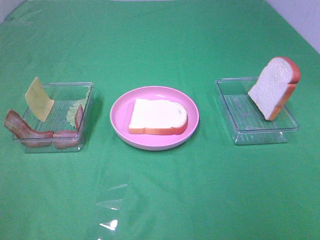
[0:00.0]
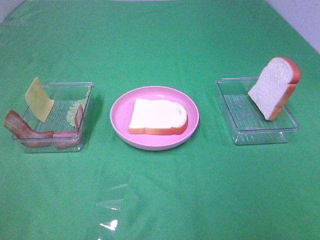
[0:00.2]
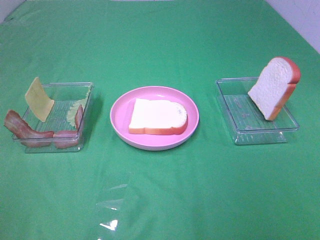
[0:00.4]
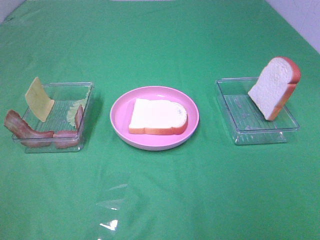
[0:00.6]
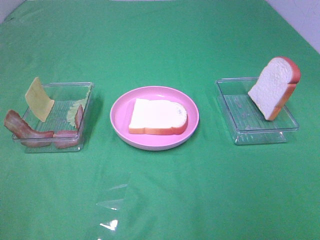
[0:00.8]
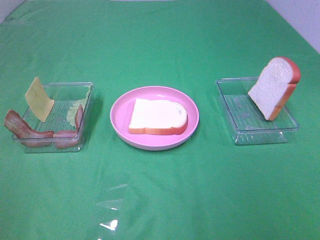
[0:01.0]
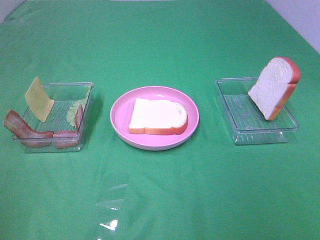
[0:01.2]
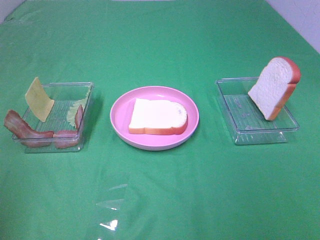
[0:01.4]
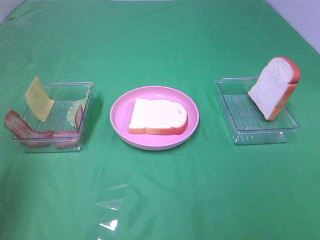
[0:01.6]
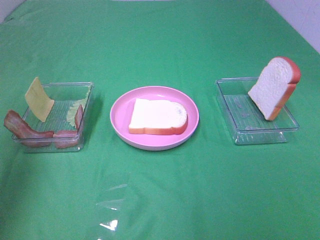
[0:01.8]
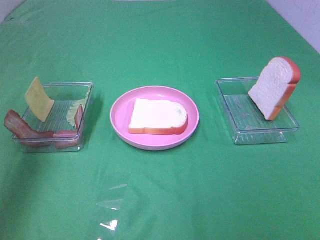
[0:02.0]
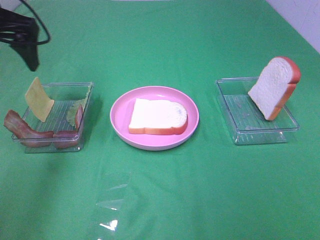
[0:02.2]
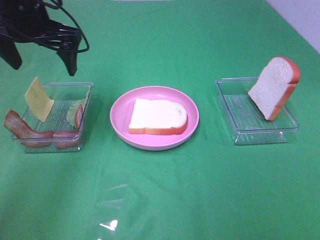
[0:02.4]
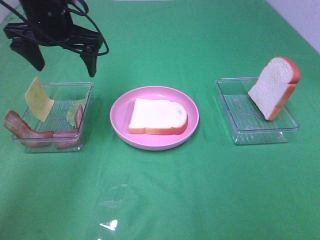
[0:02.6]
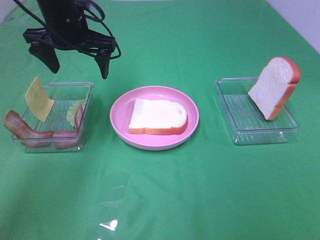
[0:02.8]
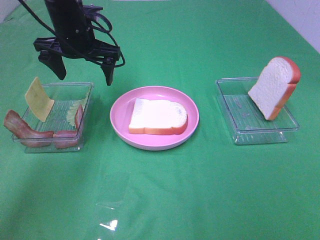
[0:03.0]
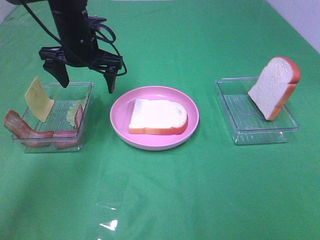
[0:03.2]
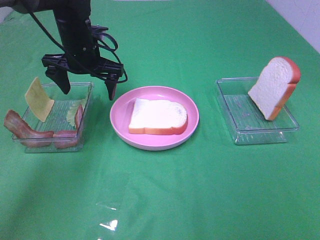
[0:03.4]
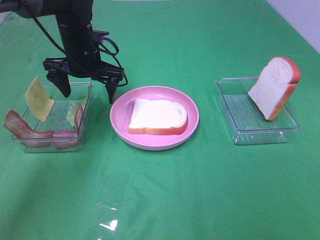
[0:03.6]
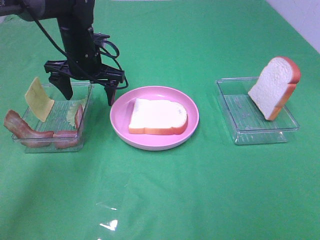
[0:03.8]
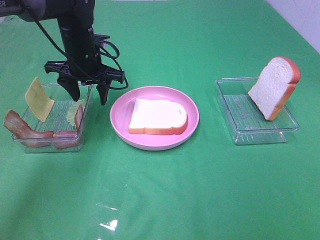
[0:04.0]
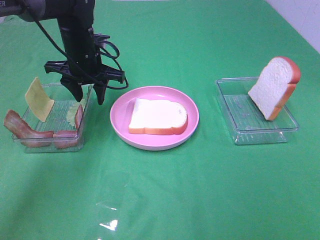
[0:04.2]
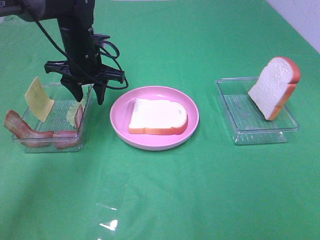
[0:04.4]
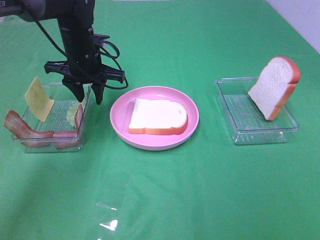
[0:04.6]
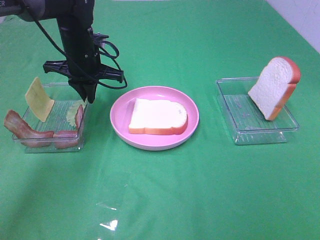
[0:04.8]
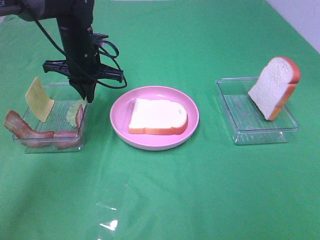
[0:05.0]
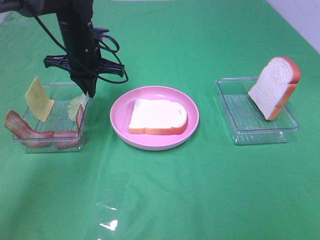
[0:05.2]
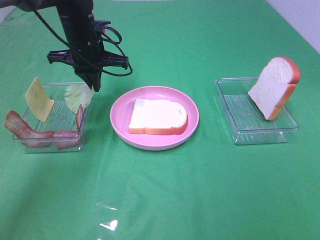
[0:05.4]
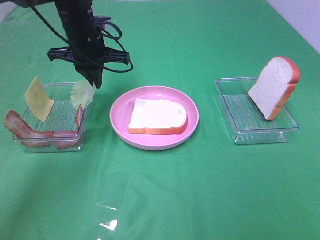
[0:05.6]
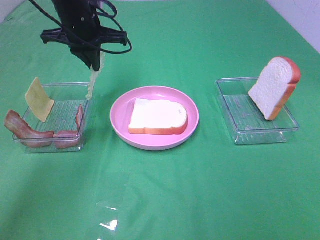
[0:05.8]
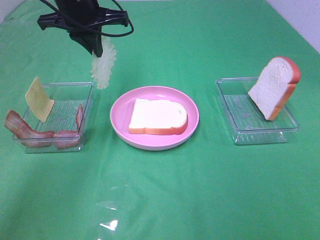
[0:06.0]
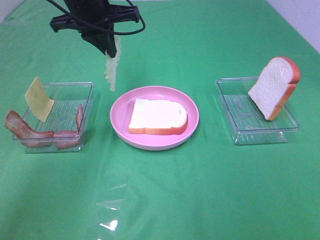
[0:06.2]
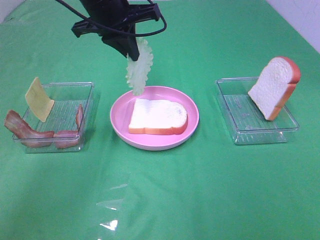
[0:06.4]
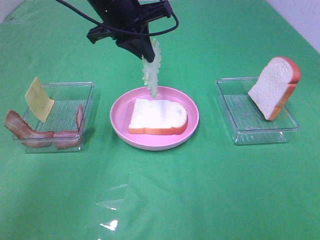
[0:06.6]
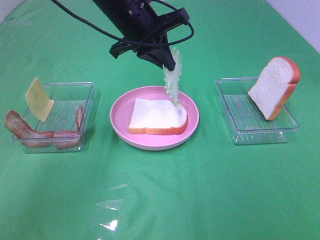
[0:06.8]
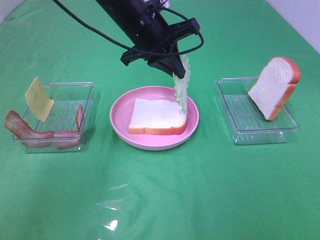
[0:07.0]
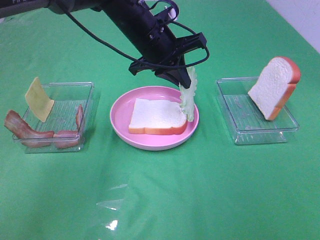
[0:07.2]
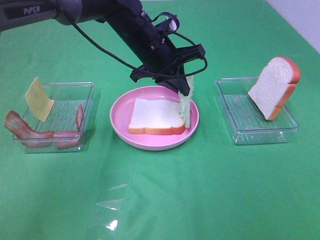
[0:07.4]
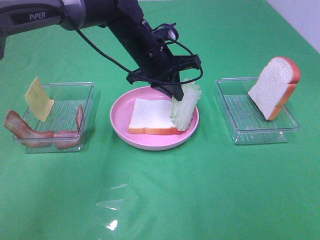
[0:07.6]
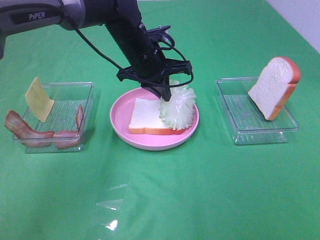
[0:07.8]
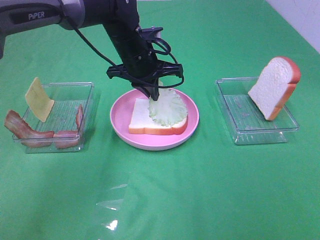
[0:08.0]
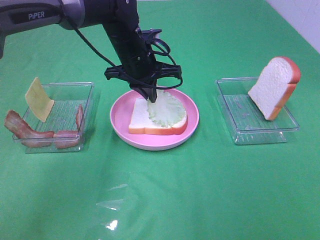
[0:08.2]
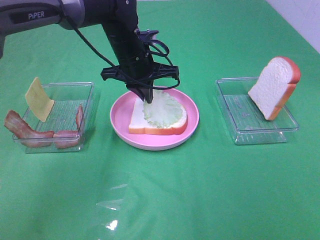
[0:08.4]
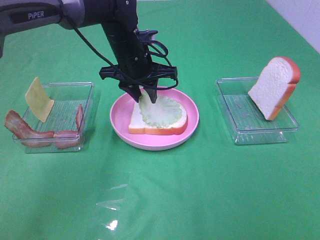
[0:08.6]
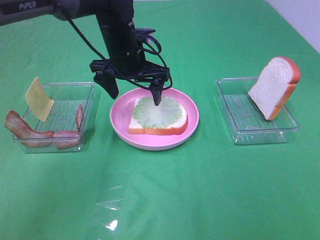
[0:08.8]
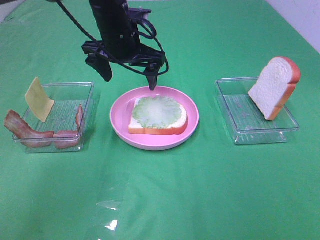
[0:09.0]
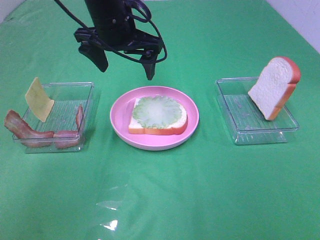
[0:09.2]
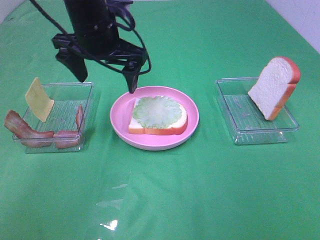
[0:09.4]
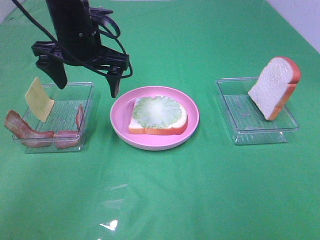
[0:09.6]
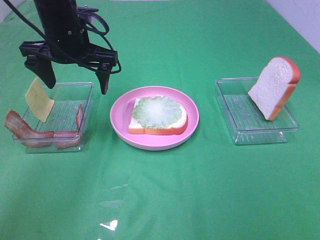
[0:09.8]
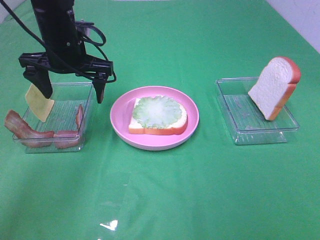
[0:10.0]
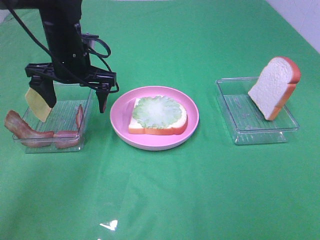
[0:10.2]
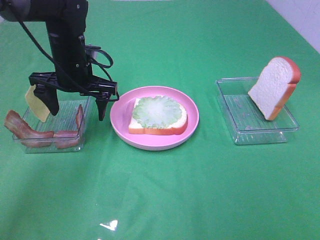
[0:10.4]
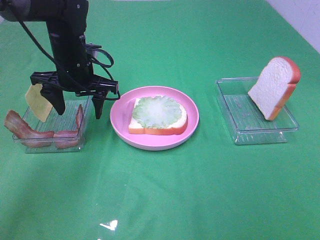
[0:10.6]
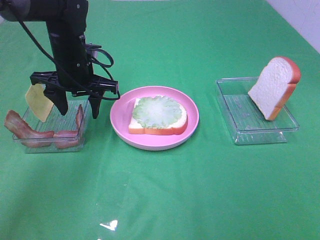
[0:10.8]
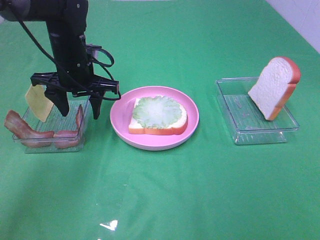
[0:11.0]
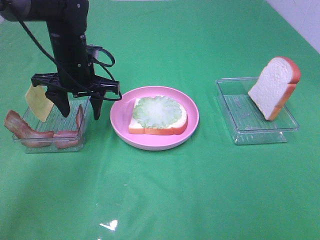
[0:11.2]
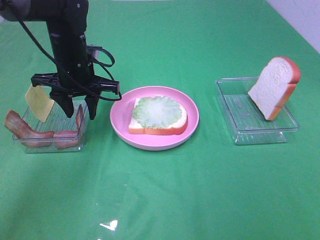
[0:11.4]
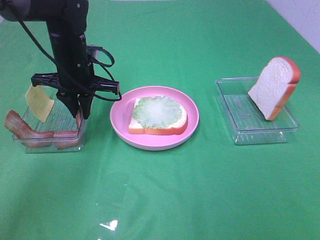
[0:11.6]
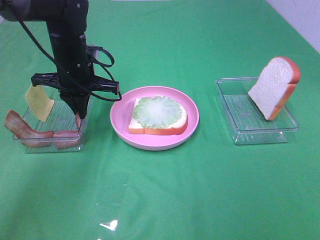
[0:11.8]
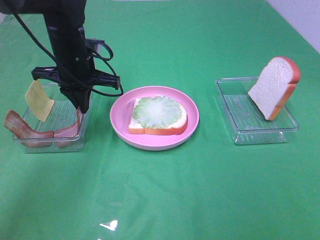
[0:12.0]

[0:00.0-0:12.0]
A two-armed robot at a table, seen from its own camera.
Task of the whole recording: Make sandwiches.
Step, 0.0 to 5.2 s: Left hand:grab the lettuce slice.
Step, 5.4 to 8.6 s: Left hand:place the lettuce slice on the bread slice.
Step, 8.8 to 11.8 s: Left hand:grab the bacon.
0.0 to 1.6 s: The left gripper is displaced forward by approximately 20 cm.
1.6 to 3.0 s: The left gripper shifts approximately 35 cm forward, to the right and downward.
3.0 to 4.4 s: The left gripper closes.
4.4 to 6.0 s: The left gripper heads upward, covering about 10 cm, and closes its fingers.
6.0 to 7.6 s: The left gripper is displaced to the right and downward by about 15 cm.
7.6 to 9.0 s: The left gripper shifts by some 5 cm, and opens up.
9.0 to 10.4 s: The left gripper moves to the left and downward, some 10 cm.
10.4 to 12.0 s: The left gripper closes up.

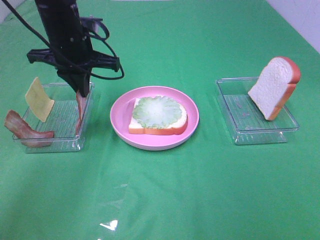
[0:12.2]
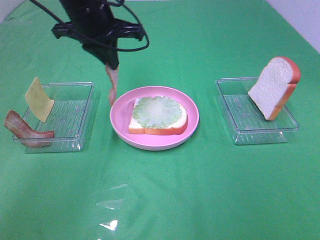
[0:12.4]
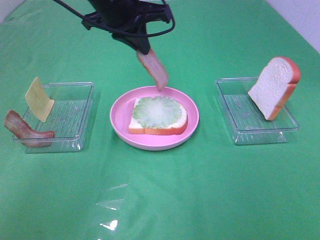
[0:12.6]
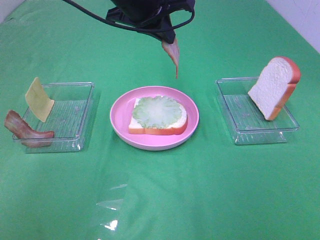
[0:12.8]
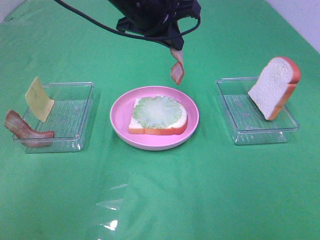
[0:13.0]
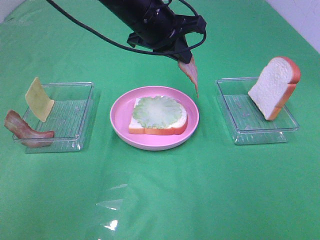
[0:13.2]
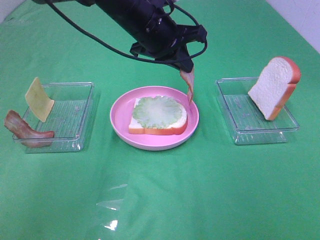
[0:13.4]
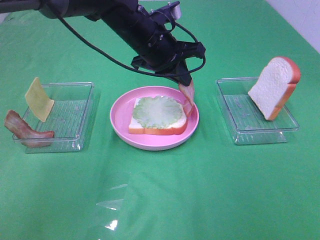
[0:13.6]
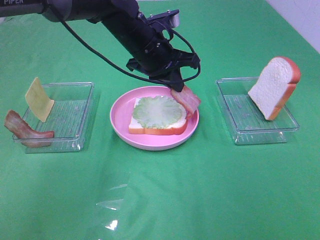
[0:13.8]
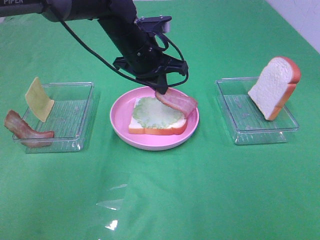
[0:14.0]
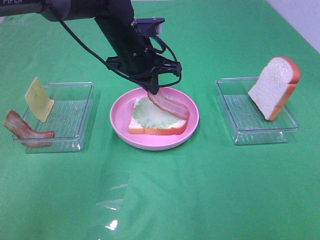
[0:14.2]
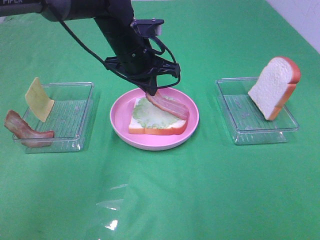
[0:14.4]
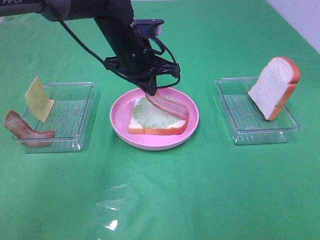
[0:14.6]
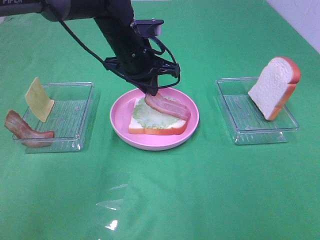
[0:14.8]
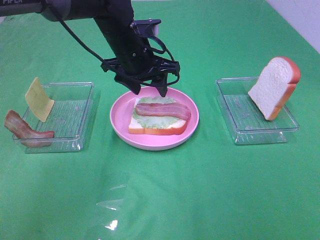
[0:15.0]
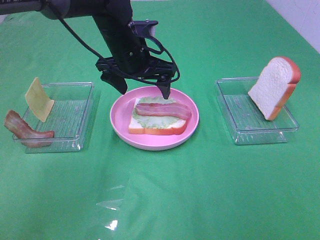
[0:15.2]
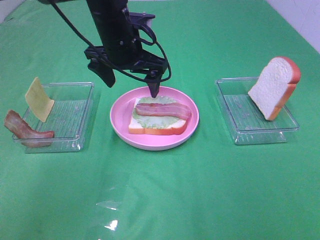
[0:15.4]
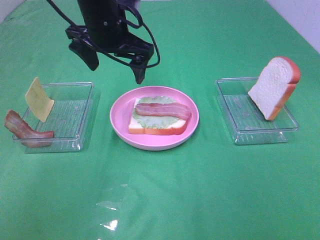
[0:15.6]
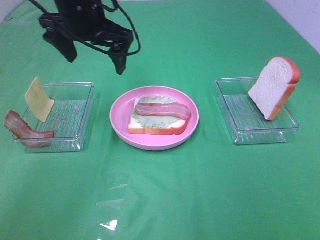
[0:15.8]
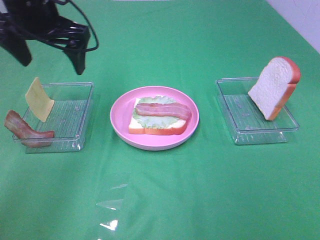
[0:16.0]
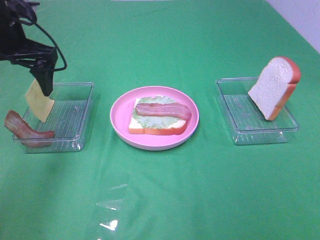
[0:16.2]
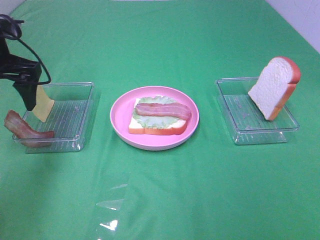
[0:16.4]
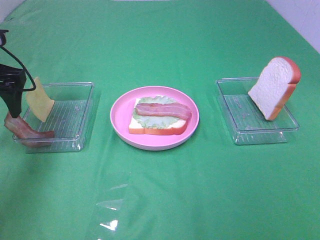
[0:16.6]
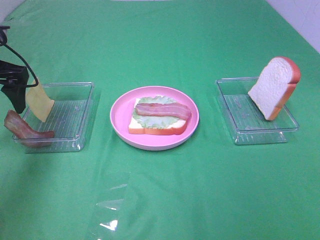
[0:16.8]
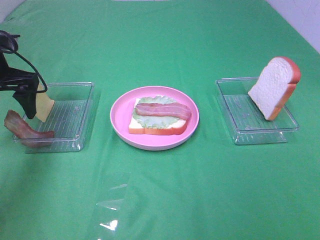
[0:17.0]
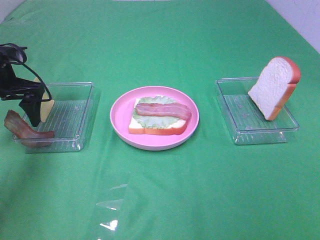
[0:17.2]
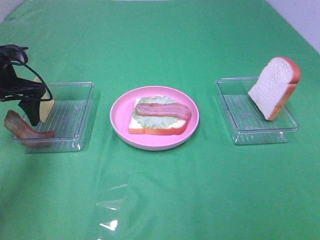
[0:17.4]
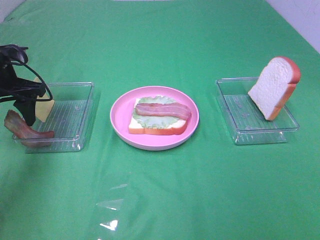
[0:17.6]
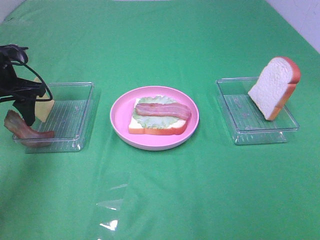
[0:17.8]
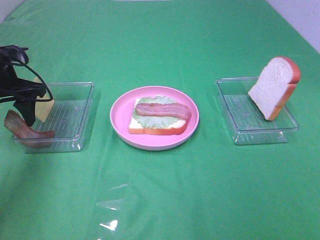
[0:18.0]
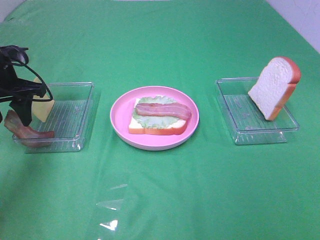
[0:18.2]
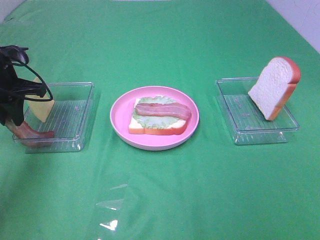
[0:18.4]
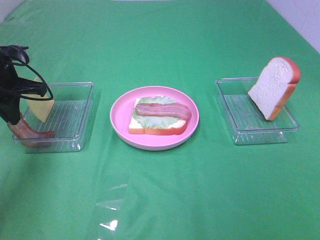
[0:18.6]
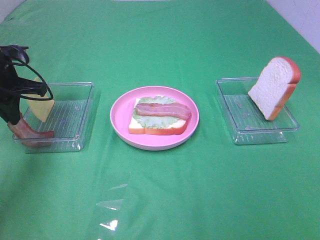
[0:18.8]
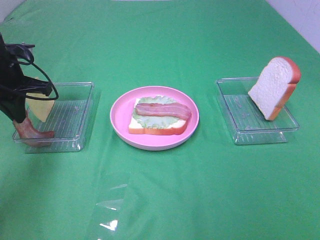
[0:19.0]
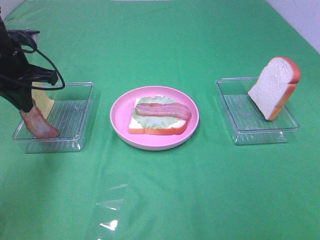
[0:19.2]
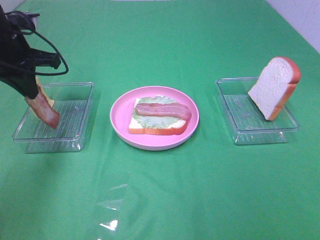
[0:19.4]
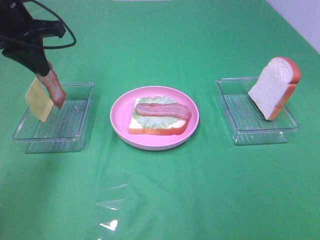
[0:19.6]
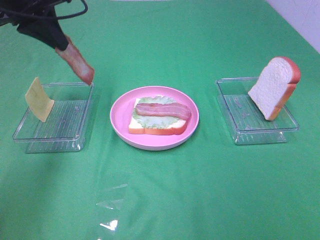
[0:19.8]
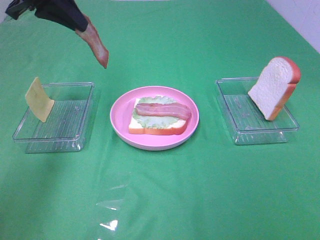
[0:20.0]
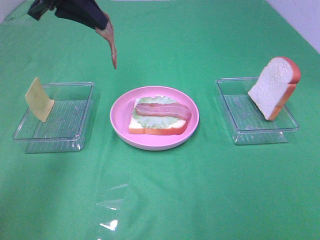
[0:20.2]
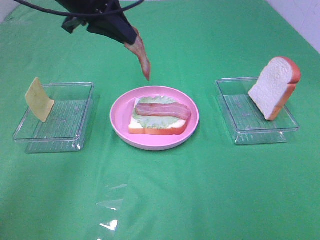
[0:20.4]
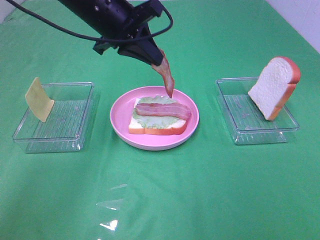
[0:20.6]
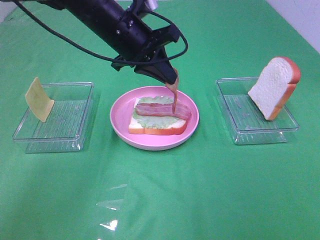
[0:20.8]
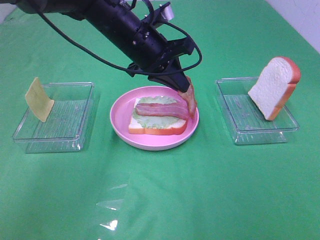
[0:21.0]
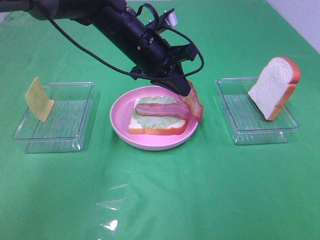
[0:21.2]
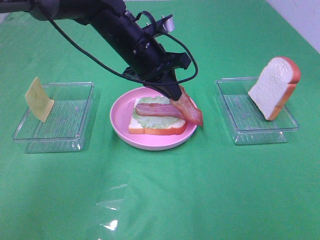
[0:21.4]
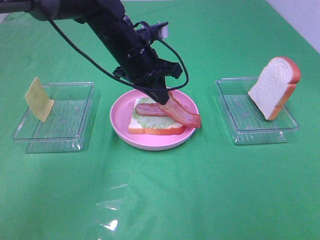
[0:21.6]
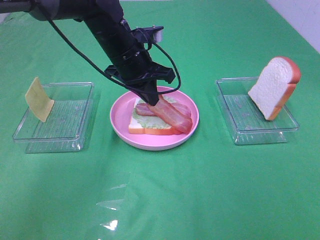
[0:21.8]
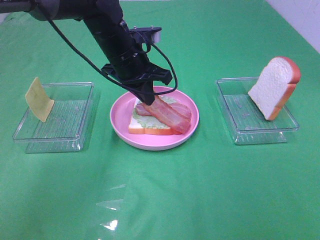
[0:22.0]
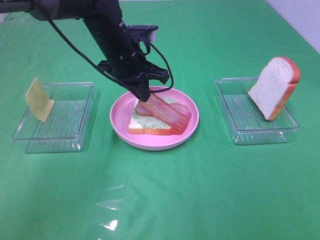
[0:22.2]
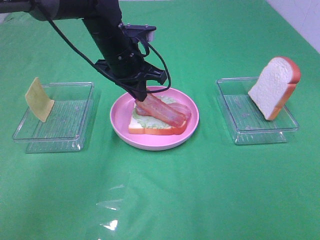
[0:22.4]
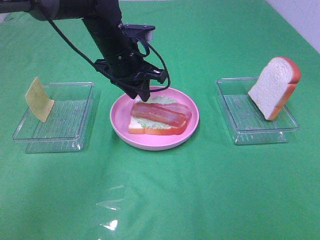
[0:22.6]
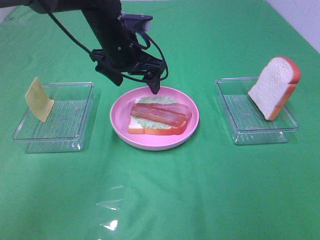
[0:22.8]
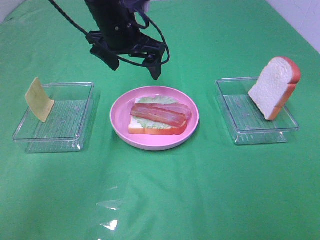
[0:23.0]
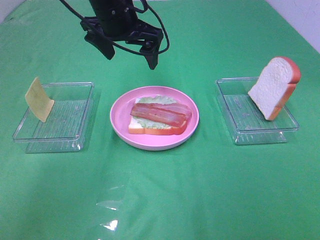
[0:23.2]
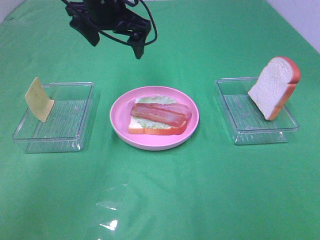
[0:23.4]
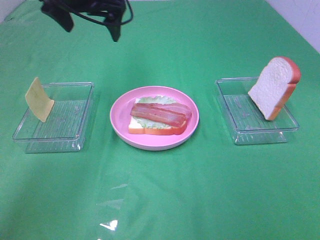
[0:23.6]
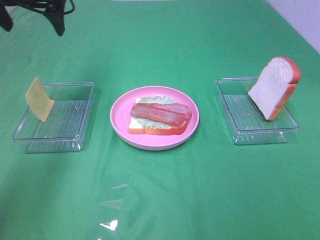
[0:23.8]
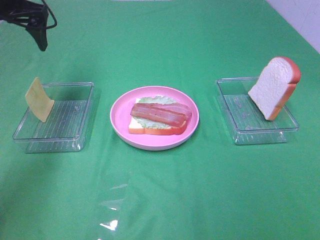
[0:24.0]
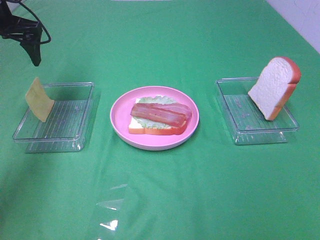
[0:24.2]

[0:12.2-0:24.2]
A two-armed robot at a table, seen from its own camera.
Task of the whole recording: Make sandwiches.
Step, 12.2 to 15.0 s: Left hand:place bacon on lettuce slice.
Step, 15.2 to 18.8 s: Left hand:grab the bacon.
Step, 19.0 to 22.6 s: Left hand:place bacon on bacon.
12.2 to 13.8 s: The left gripper moves to the right, about 10 cm.
13.8 to 15.2 s: The left gripper opens.
15.2 to 16.6 s: The left gripper moves to the left, approximately 25 cm.
16.6 to 18.2 s: The left gripper ends up roughly 5 cm from where it was, and closes up.
18.2 to 19.8 s: The left gripper moves upward and to the right, some 15 cm, and closes.
19.8 to 21.2 s: The left gripper heads to the right and downward, covering about 20 cm.
21.2 to 22.6 s: The left gripper opens up.
22.6 to 24.2 s: The left gripper heads to the left, covering some 20 cm, and opens up.
